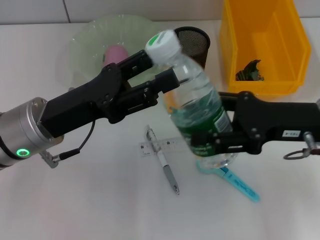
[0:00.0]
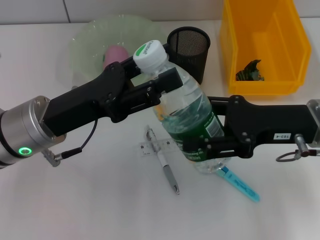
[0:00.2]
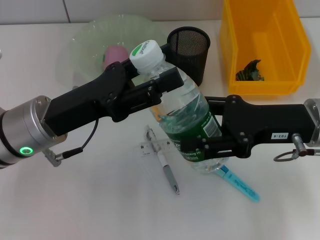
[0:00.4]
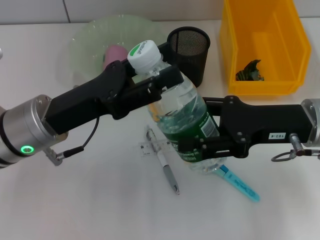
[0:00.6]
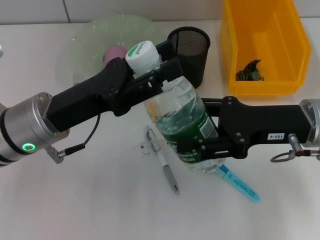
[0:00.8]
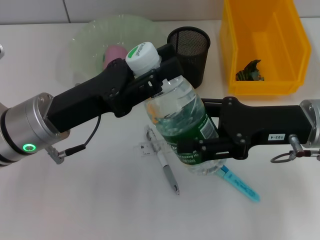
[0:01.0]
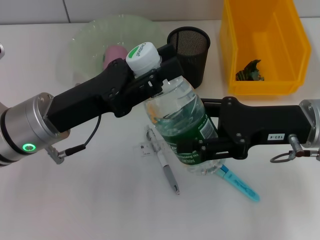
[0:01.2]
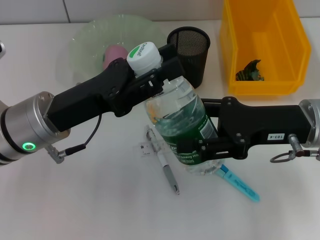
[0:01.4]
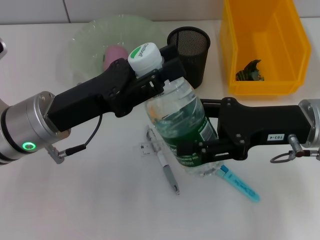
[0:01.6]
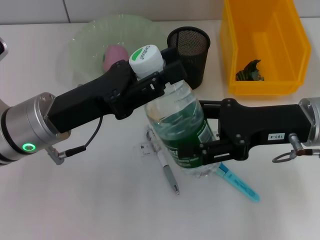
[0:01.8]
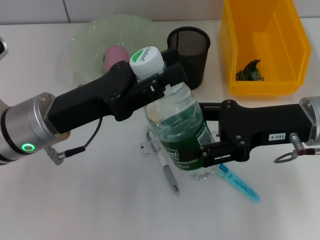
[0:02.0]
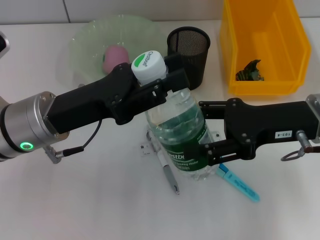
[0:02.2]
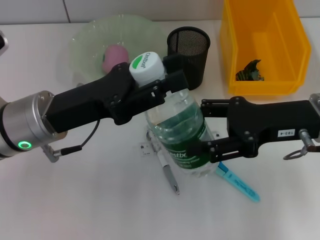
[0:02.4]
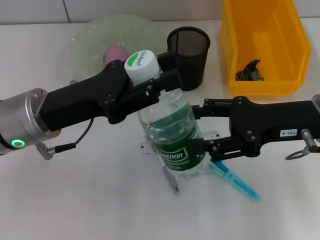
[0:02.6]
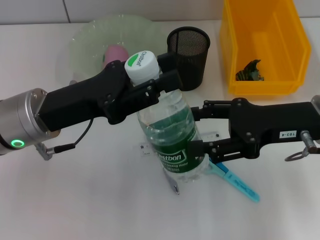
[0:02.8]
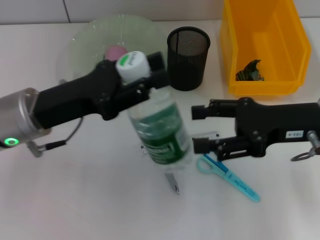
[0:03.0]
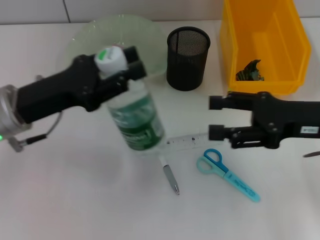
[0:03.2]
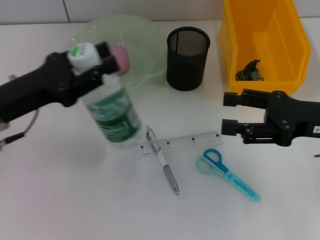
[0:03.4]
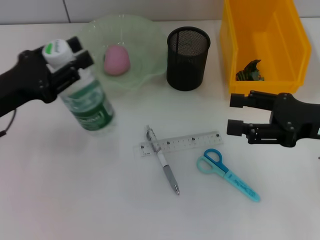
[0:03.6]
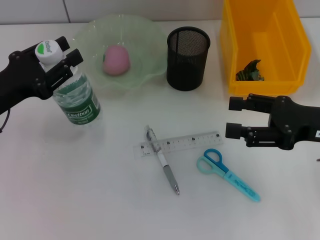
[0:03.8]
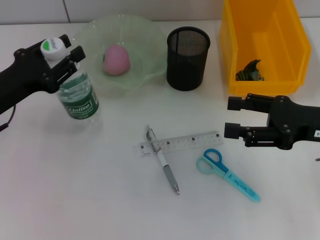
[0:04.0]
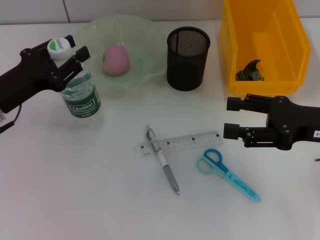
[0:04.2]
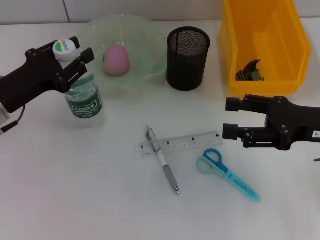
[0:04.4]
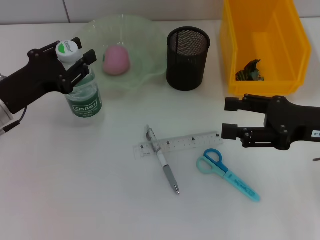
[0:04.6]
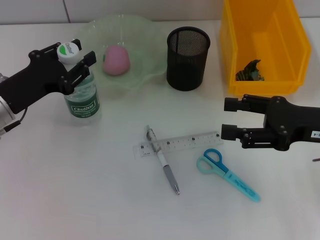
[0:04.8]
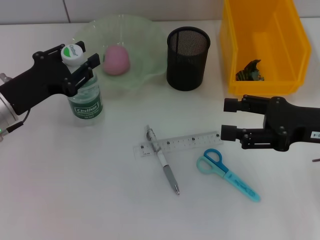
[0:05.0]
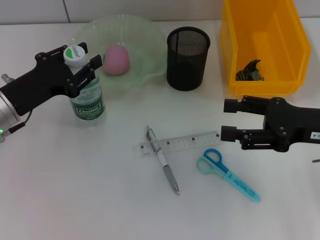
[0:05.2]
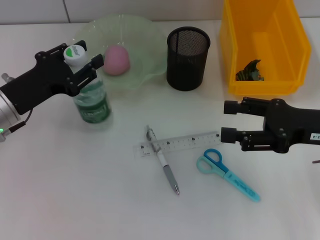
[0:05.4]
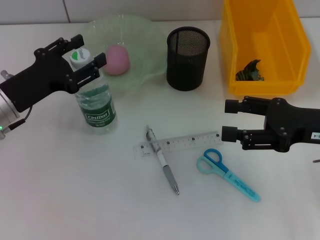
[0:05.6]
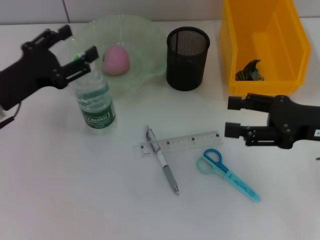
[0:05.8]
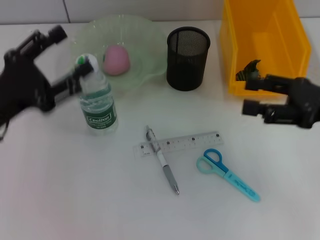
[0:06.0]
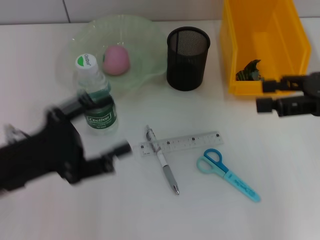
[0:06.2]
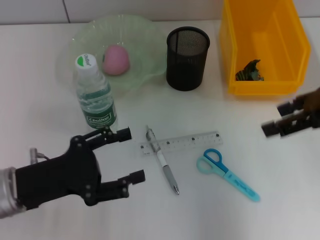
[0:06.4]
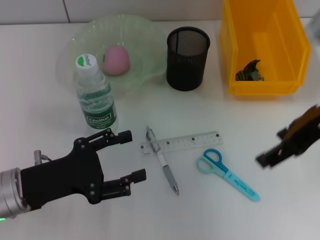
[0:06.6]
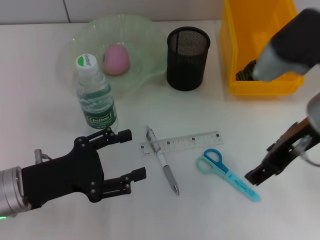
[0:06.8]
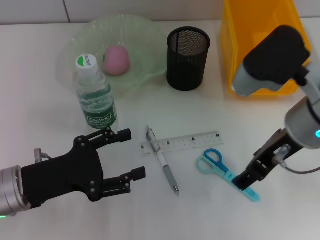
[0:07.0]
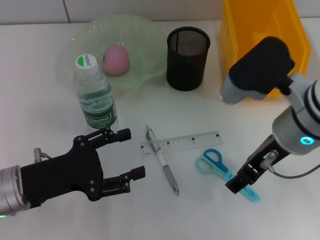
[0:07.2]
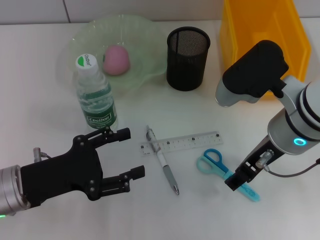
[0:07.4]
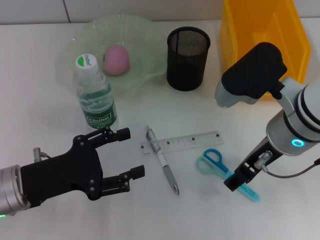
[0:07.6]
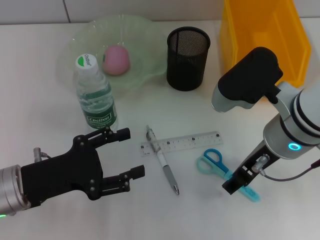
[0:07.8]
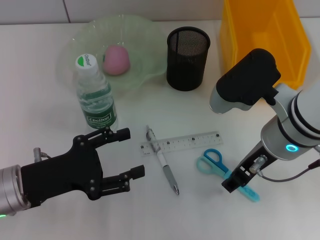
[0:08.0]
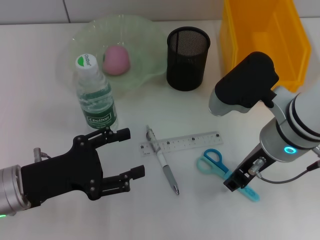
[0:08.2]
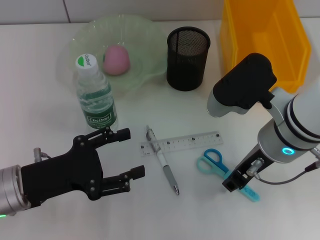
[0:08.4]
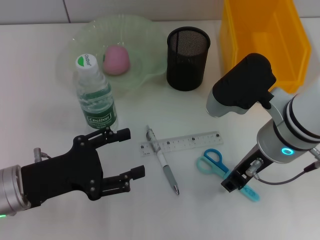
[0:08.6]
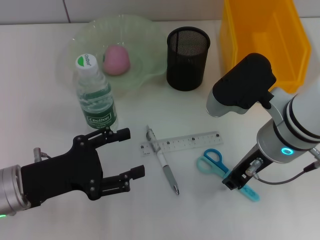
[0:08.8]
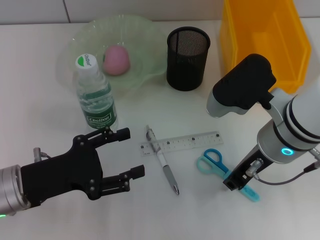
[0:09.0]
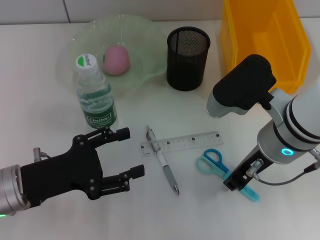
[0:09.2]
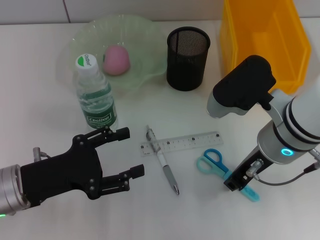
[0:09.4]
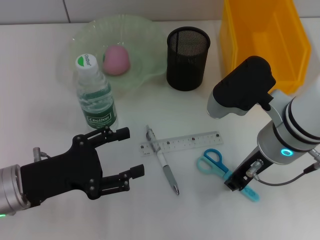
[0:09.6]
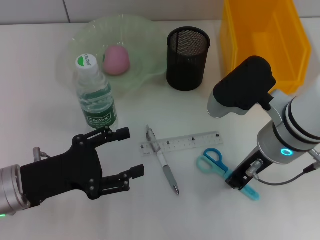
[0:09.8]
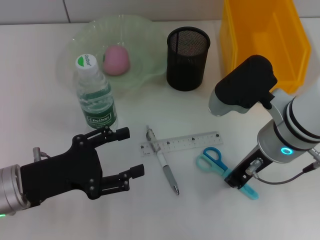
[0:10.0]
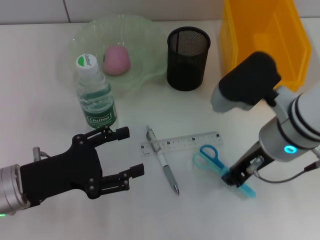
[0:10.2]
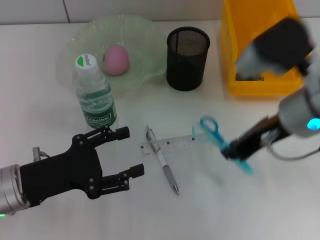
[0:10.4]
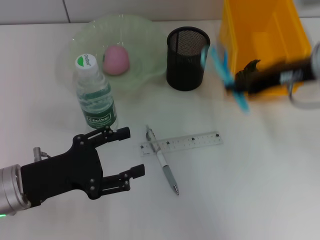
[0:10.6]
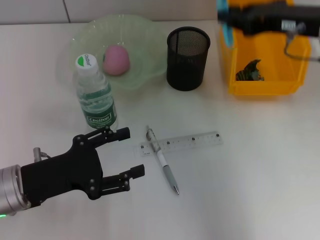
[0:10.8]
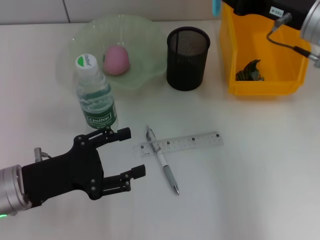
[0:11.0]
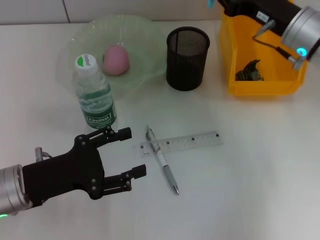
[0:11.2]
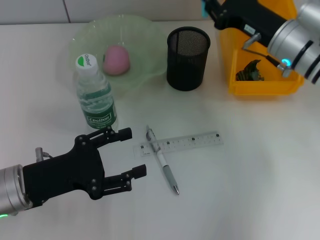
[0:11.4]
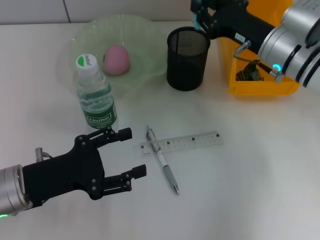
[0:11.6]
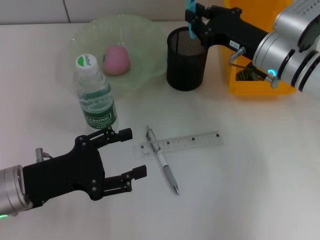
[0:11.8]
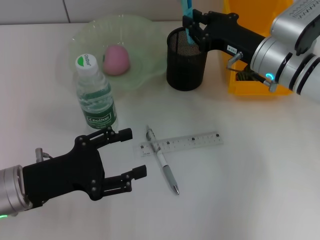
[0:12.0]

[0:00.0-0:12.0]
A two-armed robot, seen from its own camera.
Step, 0:00.0 to 0:02.4: Pass the water bottle from the right hand to the left hand.
Step, 0:02.6 to 0:05.6: Place the water bottle on the table with the left hand.
Step, 0:05.8 to 0:09.8: Grab the blue scissors with the right hand.
0:00.0 to 0:01.6: The left gripper closes.
0:01.6 to 0:03.0: The grippers stay close to where they were, moving slightly.
0:03.0 to 0:04.4: The left gripper shifts some 5 cm to the left.
0:04.4 to 0:06.0: The left gripper heads backward, covering some 5 cm, and opens up.
0:06.0 to 0:07.6: The left gripper moves downward, about 5 cm. The right gripper heads to the left, covering about 15 cm.
0:07.6 to 0:09.0: The right gripper closes its fingers.
0:09.0 to 0:10.4: The right gripper changes place by about 5 cm.
0:10.4 to 0:12.0: The right gripper is displaced forward and downward by roughly 15 cm.

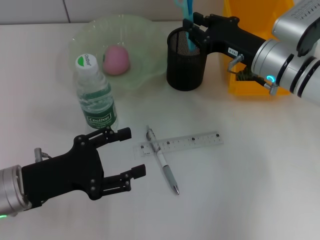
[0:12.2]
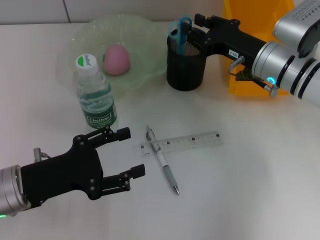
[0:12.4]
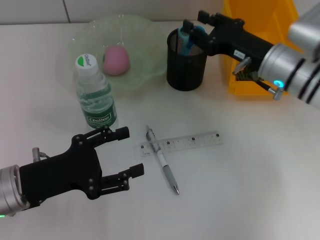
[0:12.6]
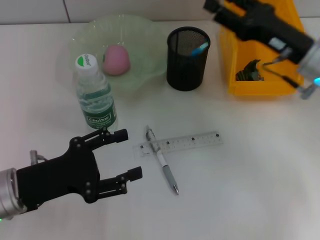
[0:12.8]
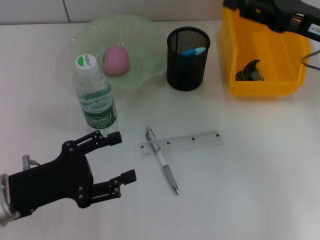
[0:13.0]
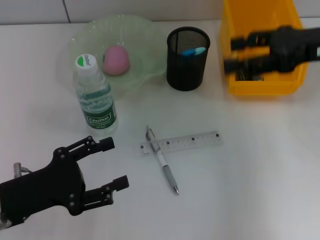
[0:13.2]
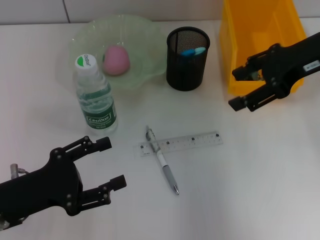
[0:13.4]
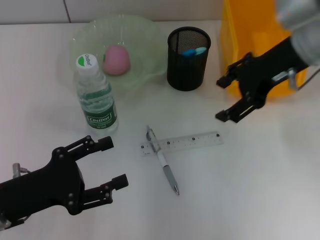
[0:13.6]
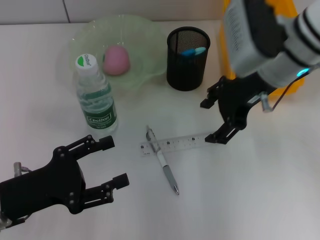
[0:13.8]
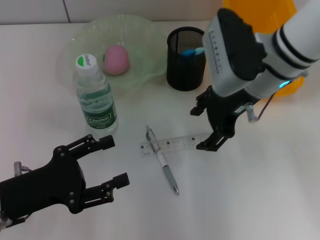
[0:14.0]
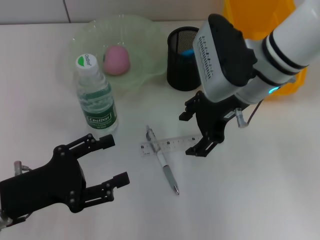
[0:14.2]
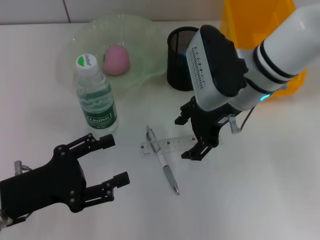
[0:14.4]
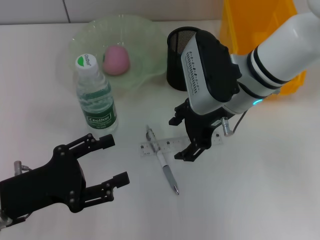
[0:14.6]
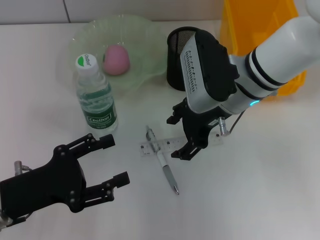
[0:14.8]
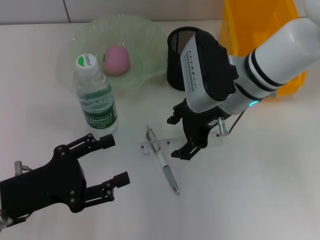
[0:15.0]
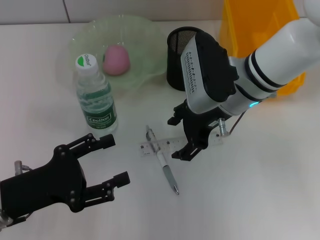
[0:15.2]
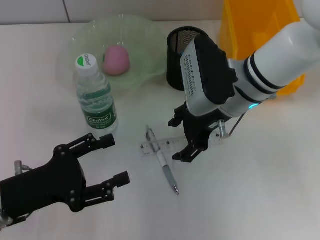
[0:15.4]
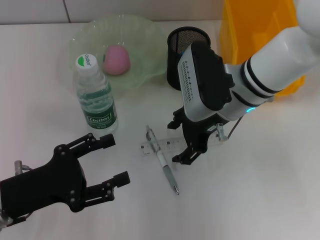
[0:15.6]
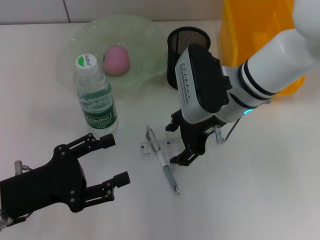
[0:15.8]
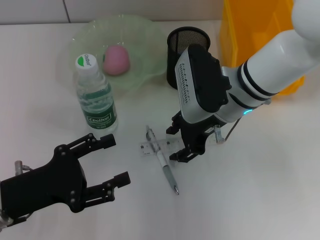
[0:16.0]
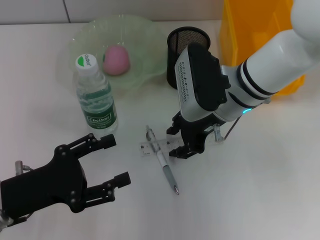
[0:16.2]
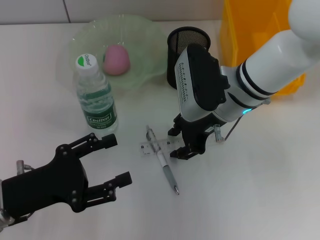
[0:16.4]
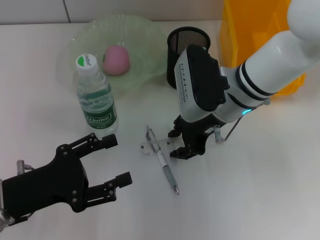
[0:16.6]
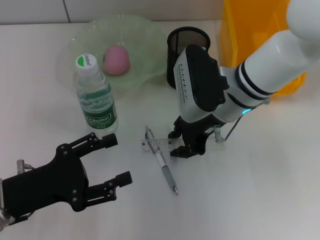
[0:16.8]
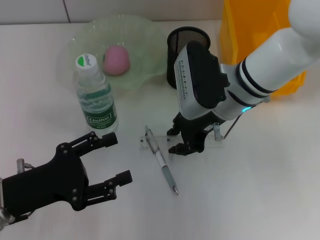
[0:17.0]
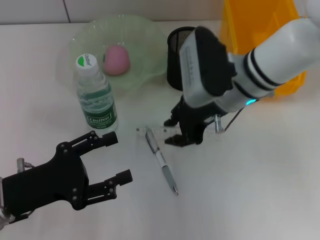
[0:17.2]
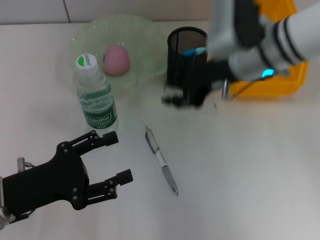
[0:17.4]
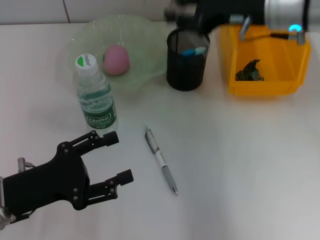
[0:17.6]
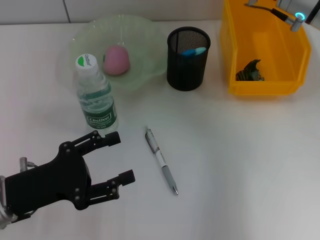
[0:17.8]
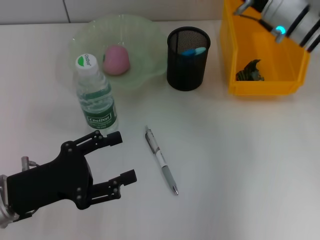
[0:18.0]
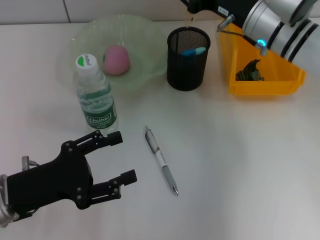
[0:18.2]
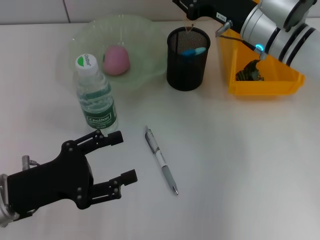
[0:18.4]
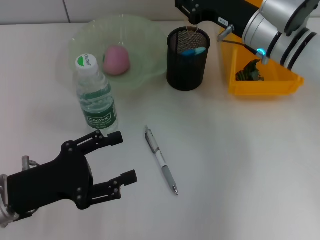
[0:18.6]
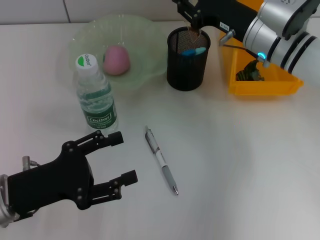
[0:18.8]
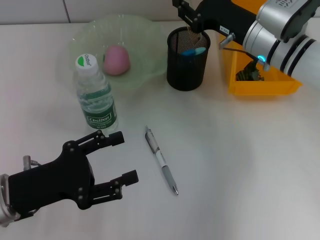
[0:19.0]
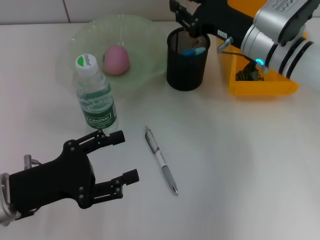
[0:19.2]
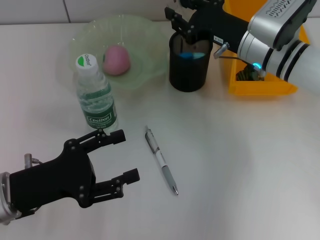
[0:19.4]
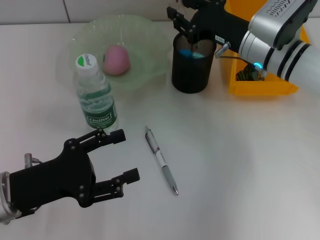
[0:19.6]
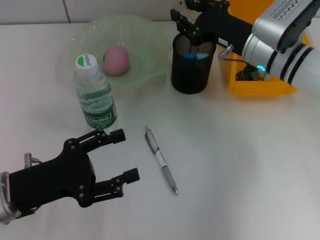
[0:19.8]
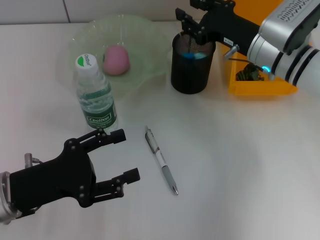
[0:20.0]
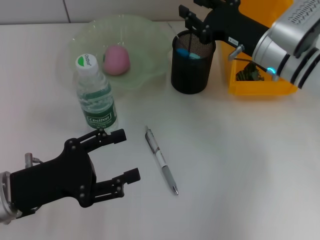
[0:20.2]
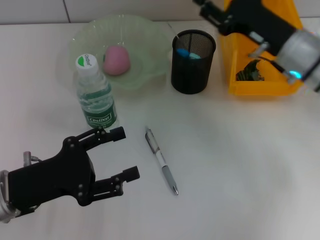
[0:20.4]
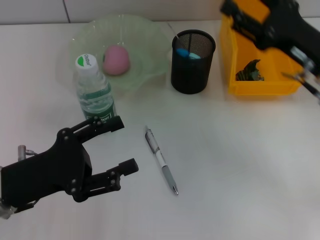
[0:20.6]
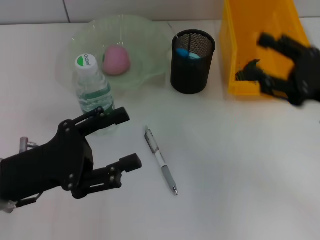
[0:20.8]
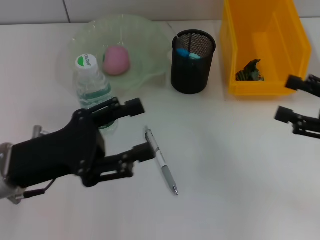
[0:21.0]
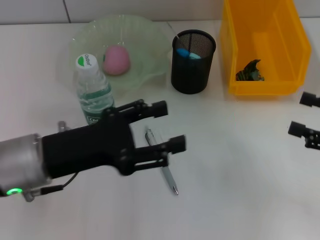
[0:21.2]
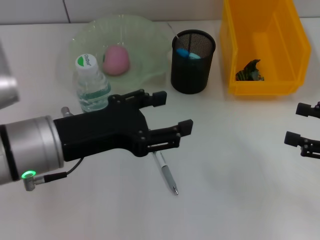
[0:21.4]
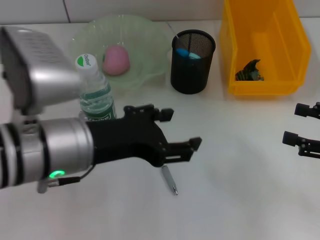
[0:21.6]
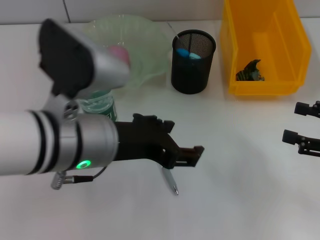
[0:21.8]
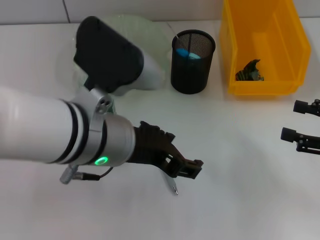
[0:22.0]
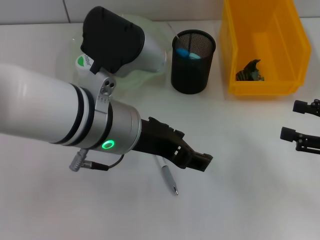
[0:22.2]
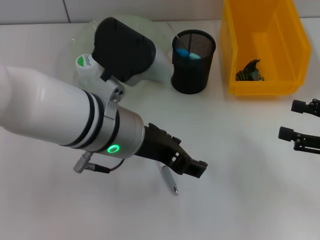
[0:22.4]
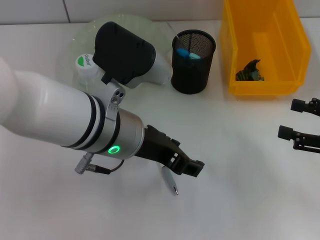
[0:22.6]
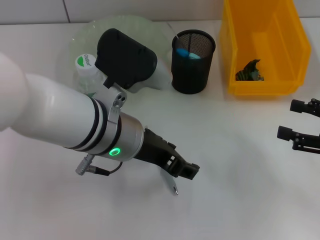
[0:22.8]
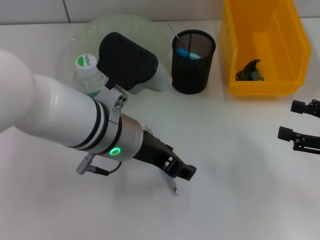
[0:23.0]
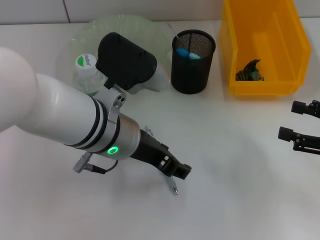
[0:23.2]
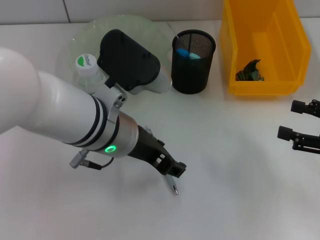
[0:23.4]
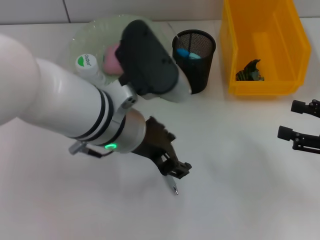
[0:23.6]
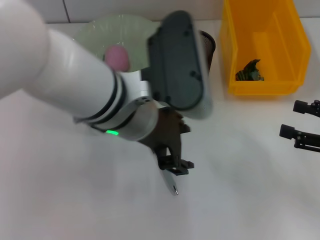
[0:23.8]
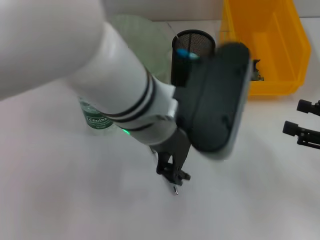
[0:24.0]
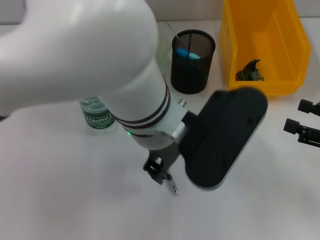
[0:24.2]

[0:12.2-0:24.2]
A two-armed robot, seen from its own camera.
Step, 0:13.0 to 0:16.6: Grab the ruler with the right hand.
Step, 0:17.0 to 0:20.0: Place the ruler into the pen holder with the right hand.
0:12.2 to 0:13.8: The right gripper travels upward by some 10 cm, and opens up.
0:13.8 to 0:15.2: The right gripper is displaced downward by approximately 5 cm.
0:15.2 to 0:16.6: The right gripper closes.
0:16.6 to 0:18.2: The right gripper travels to the right and forward by approximately 10 cm.
0:18.2 to 0:19.8: The grippers make only small movements.
0:19.8 to 0:21.2: The right gripper heads to the right and backward, covering approximately 25 cm, and opens. The left gripper travels upward and to the right by about 10 cm.
0:21.2 to 0:22.6: The left gripper is displaced to the right by some 10 cm.
0:22.6 to 0:24.2: The left gripper moves to the right, roughly 5 cm.
